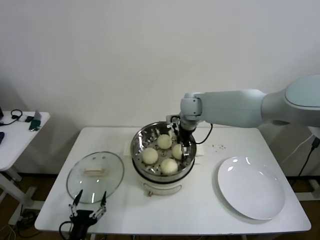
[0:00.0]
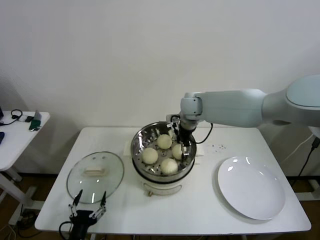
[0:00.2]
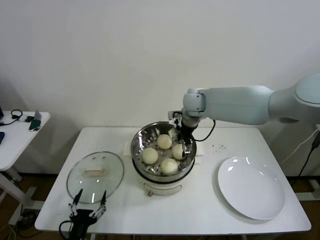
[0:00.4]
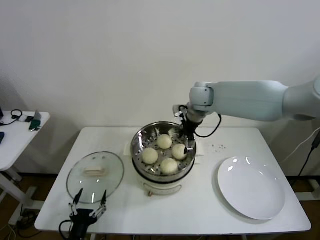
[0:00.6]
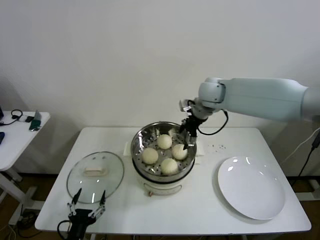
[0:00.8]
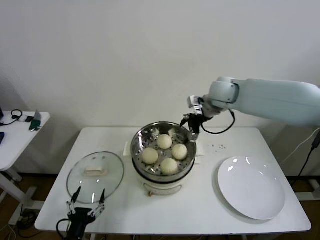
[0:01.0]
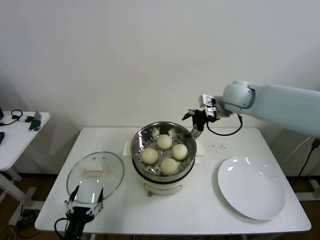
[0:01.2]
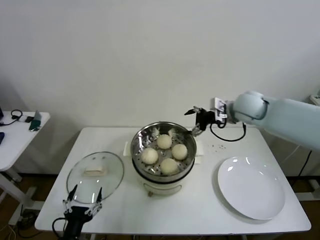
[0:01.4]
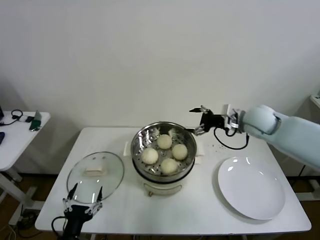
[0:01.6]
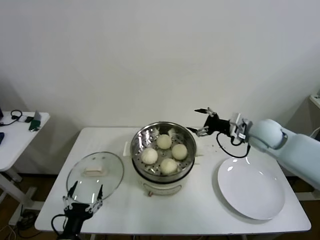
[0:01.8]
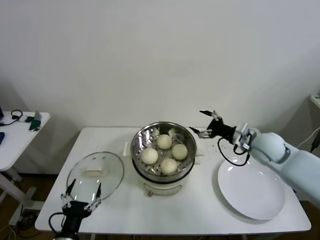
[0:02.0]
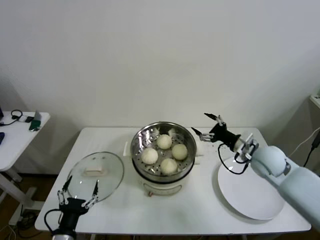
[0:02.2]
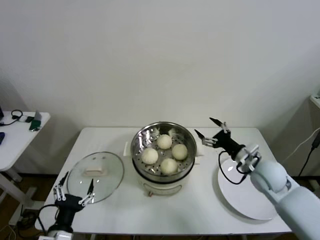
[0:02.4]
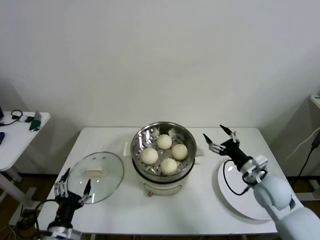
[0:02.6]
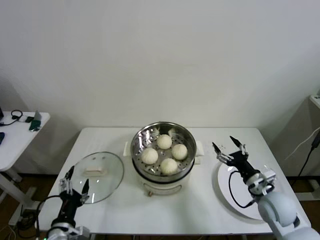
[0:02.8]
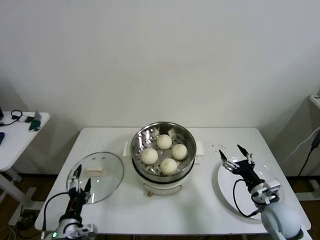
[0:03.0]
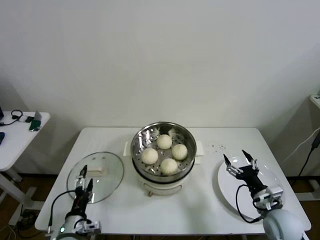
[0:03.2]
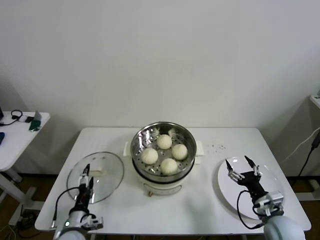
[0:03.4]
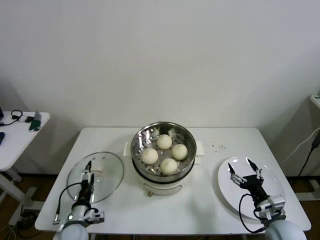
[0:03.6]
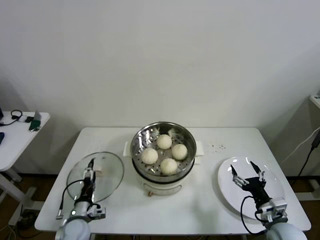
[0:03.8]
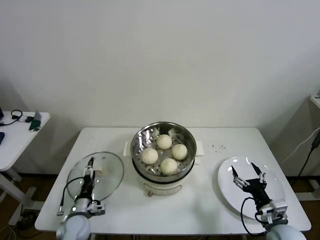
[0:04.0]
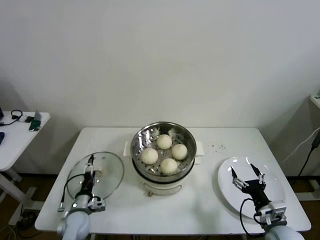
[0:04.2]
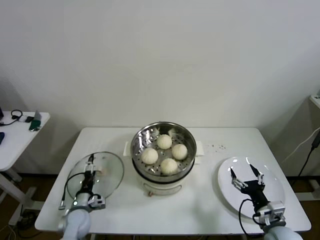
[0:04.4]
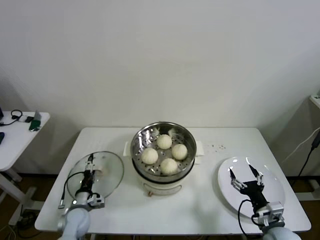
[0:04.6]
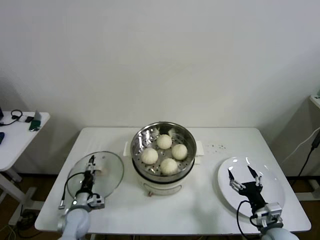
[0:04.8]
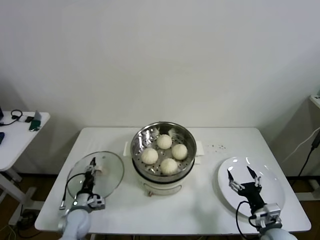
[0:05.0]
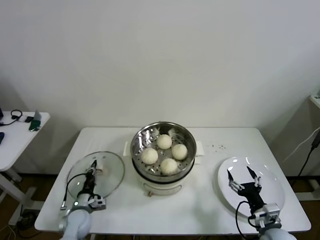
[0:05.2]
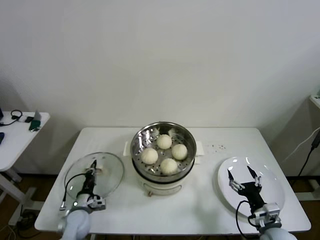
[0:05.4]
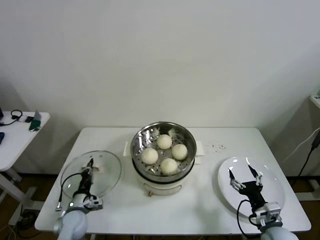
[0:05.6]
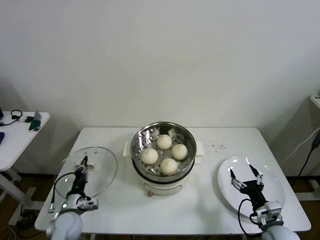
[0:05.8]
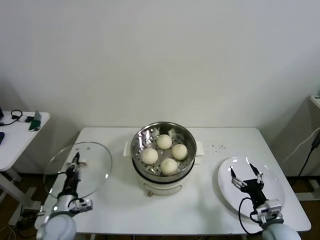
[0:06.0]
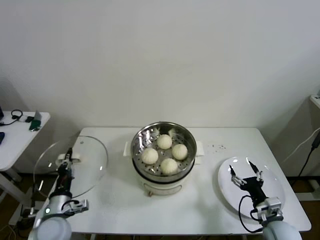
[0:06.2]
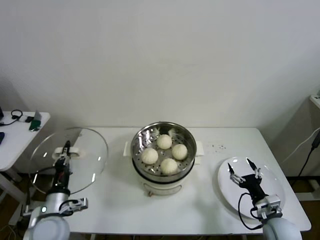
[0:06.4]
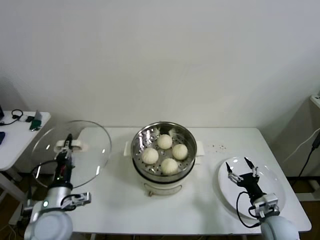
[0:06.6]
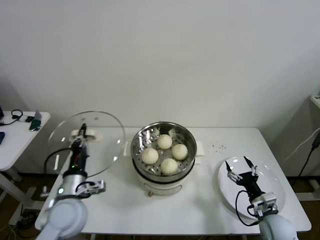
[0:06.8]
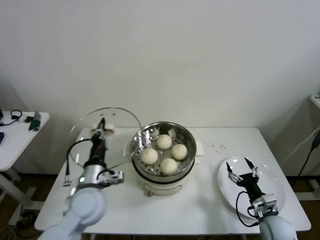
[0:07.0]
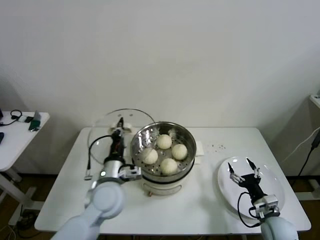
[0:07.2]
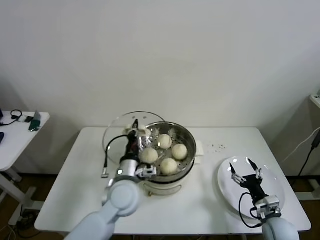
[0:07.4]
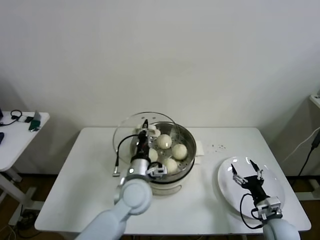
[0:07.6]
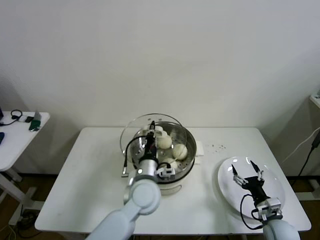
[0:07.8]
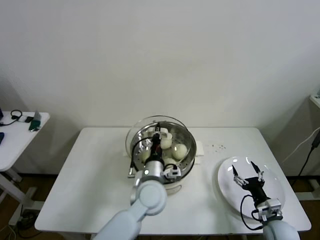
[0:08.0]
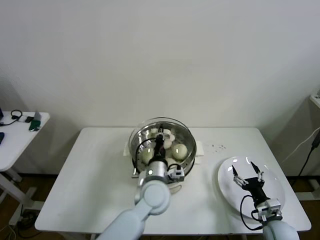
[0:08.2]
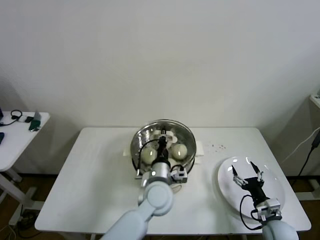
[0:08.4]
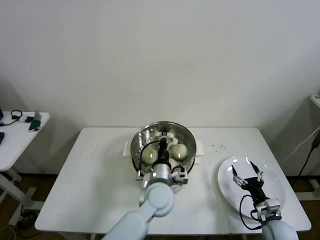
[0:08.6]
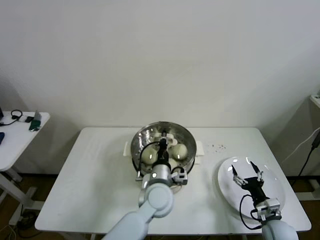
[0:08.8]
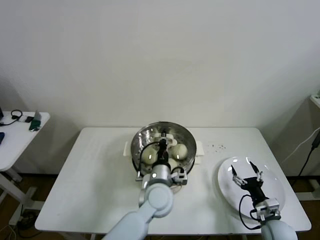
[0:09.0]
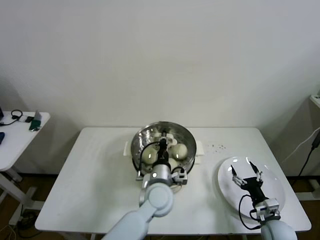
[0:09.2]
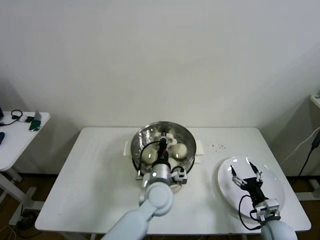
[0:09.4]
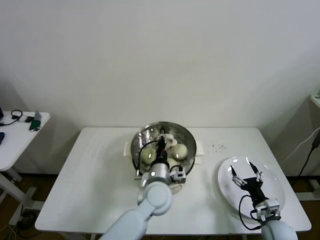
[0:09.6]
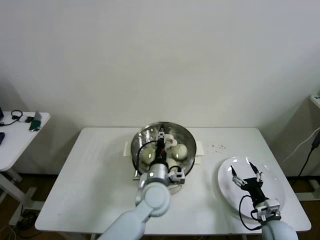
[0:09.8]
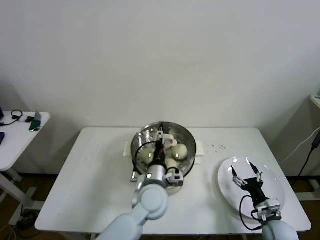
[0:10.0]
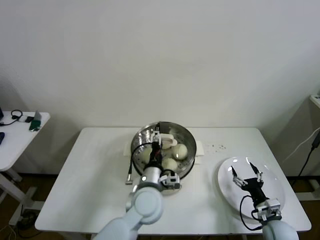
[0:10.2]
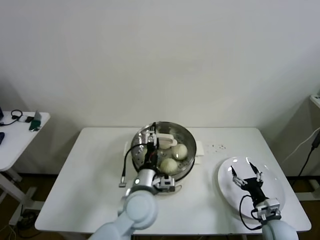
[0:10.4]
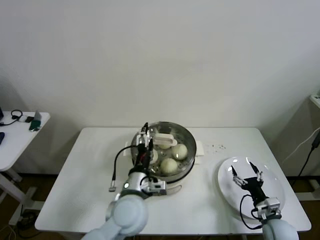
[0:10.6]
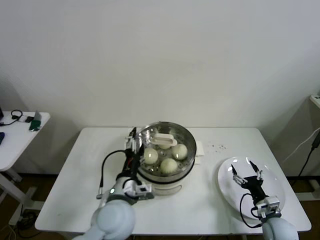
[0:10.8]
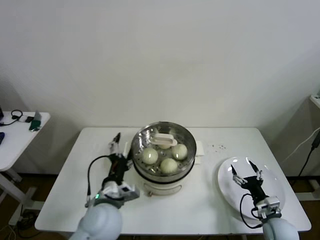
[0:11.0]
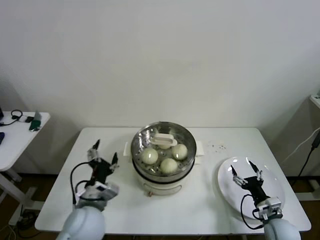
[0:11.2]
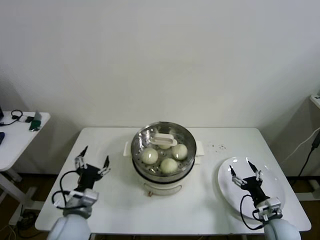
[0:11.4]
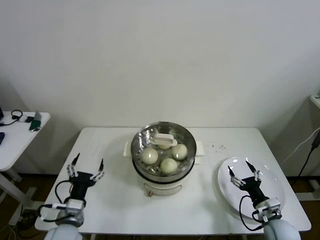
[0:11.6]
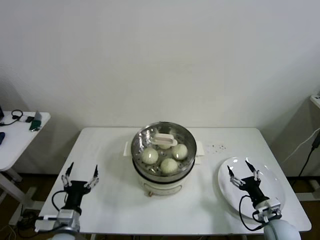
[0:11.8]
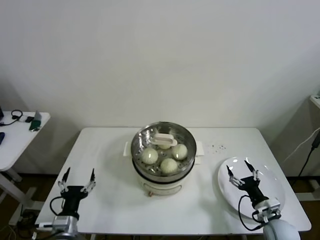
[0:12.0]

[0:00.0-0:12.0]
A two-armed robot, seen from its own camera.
Step, 0:00.4 to 0:05.2: Grasp the pot lid with left gripper.
Step, 0:05.4 to 0:09.4: Place the pot lid on the steamer with left gripper.
0:00.0 to 0:01.6: The right gripper heads to the right and backward, covering about 20 cm.
0:01.6 to 0:03.0: The right gripper heads backward and downward, covering some 30 cm. Meanwhile the left gripper heads forward, covering some 5 cm.
0:03.0 to 0:04.4: The right gripper moves backward, some 5 cm. Meanwhile the left gripper is displaced forward and downward by about 15 cm.
0:04.4 to 0:06.0: The left gripper shifts roughly 5 cm upward, and closes up.
0:06.0 to 0:07.6: The left gripper travels to the right and upward by about 30 cm.
0:07.6 to 0:09.0: The left gripper moves to the right, about 5 cm.
0:09.0 to 0:10.4: The left gripper moves about 5 cm, and opens its fingers.
0:10.4 to 0:12.0: The left gripper heads to the left, downward and backward, covering some 30 cm.
